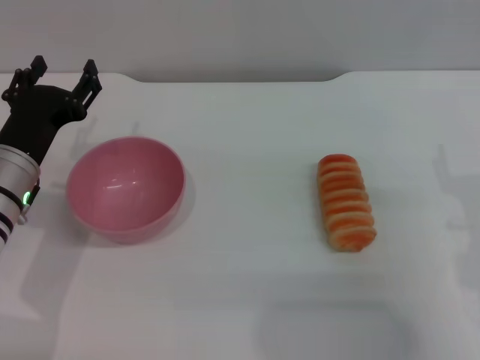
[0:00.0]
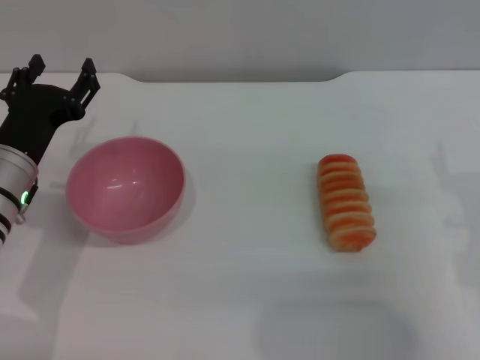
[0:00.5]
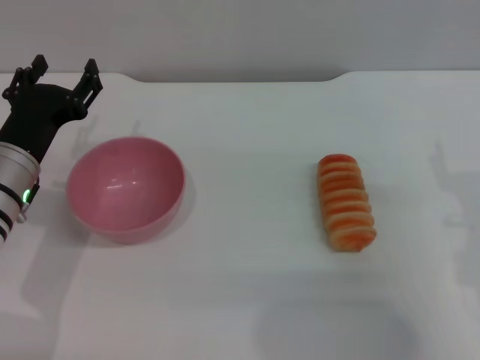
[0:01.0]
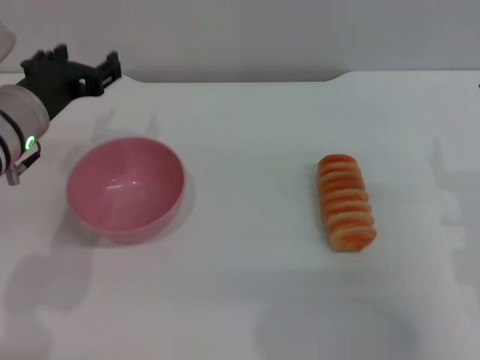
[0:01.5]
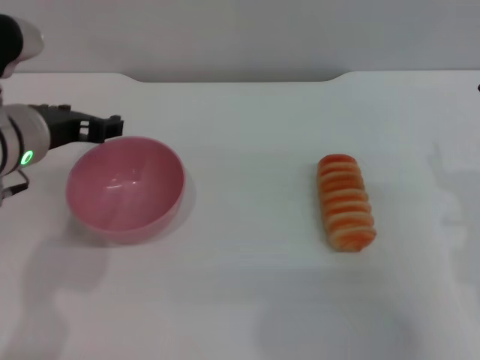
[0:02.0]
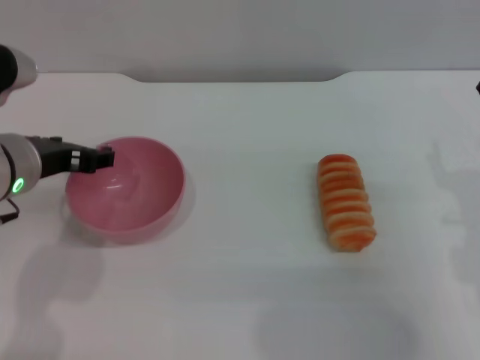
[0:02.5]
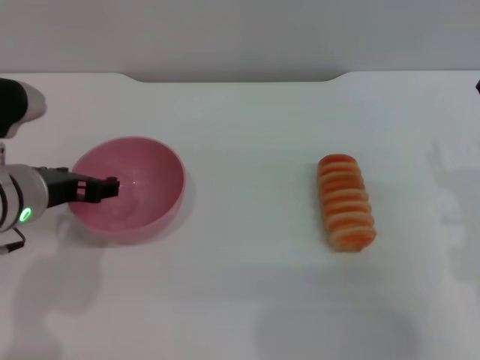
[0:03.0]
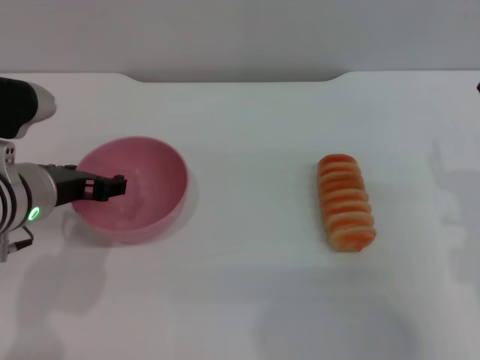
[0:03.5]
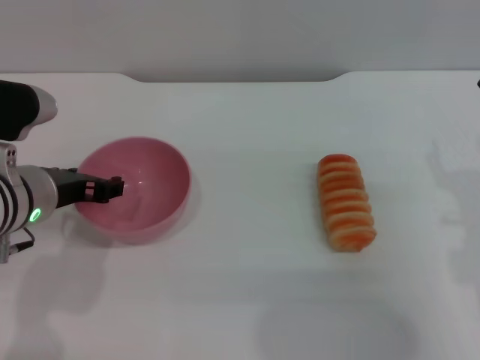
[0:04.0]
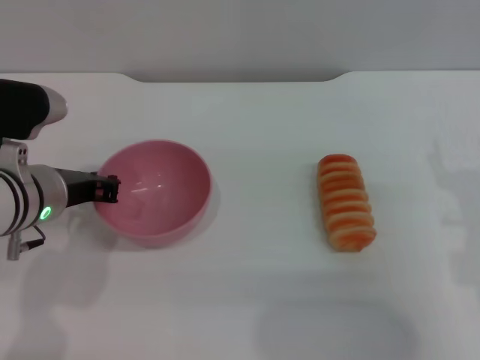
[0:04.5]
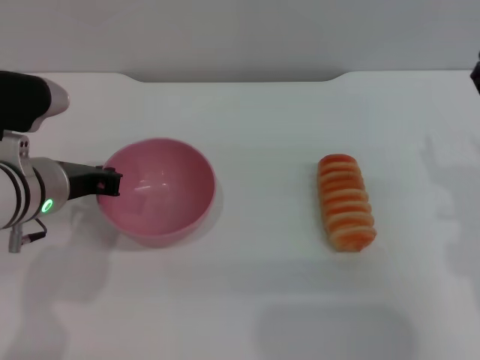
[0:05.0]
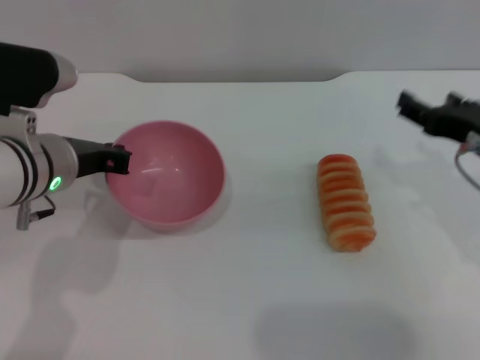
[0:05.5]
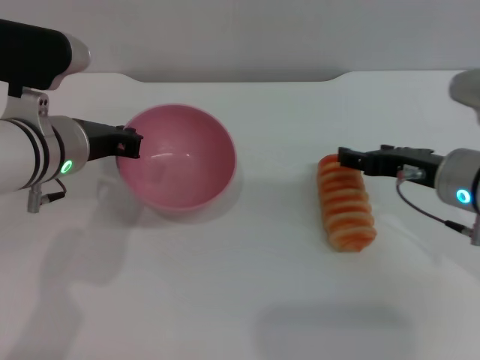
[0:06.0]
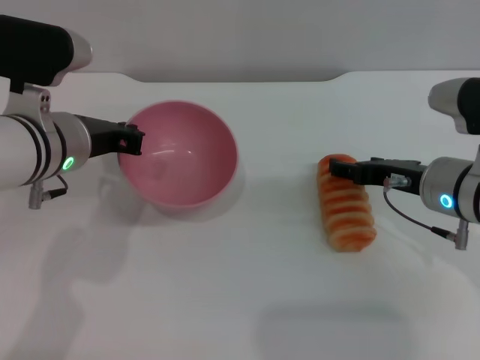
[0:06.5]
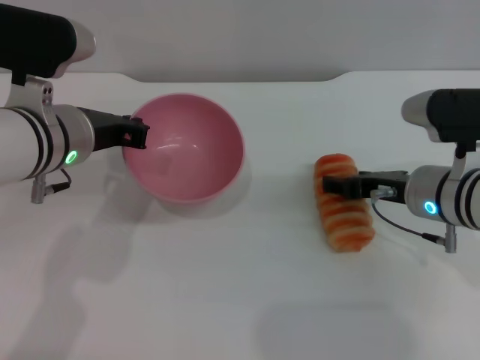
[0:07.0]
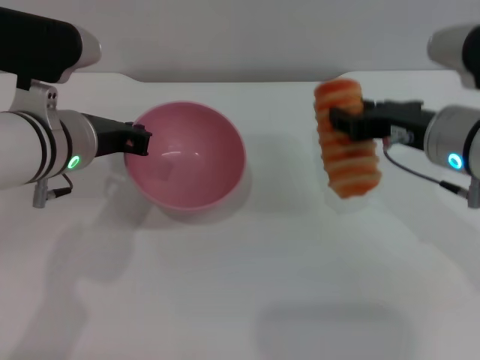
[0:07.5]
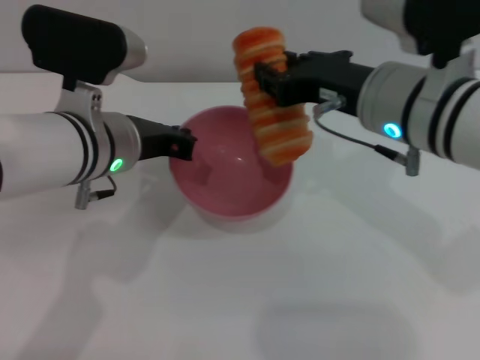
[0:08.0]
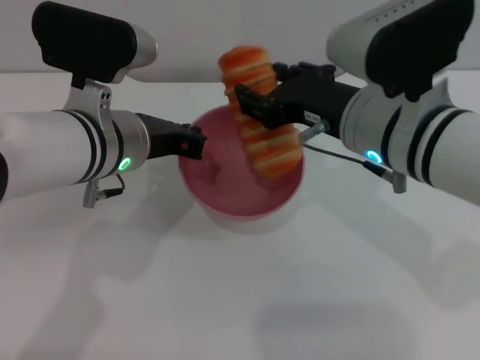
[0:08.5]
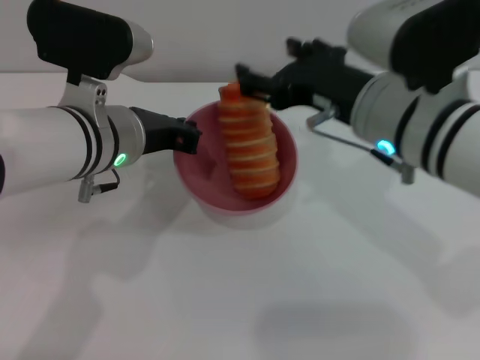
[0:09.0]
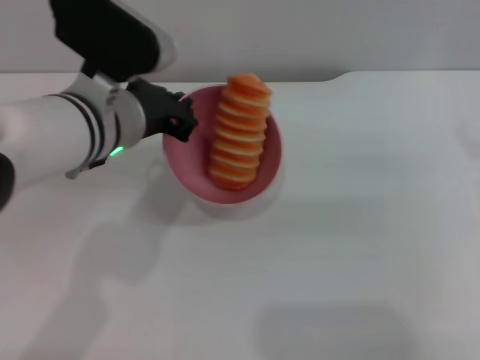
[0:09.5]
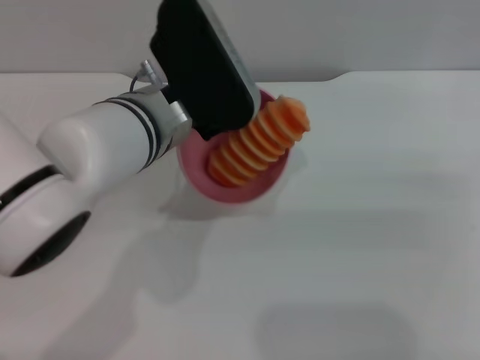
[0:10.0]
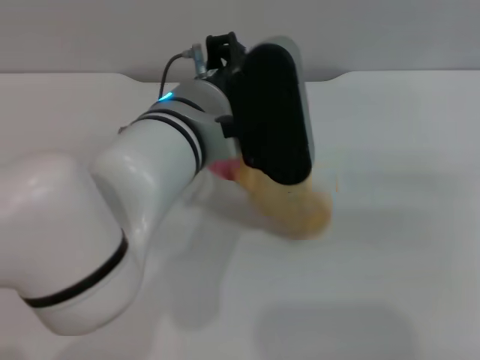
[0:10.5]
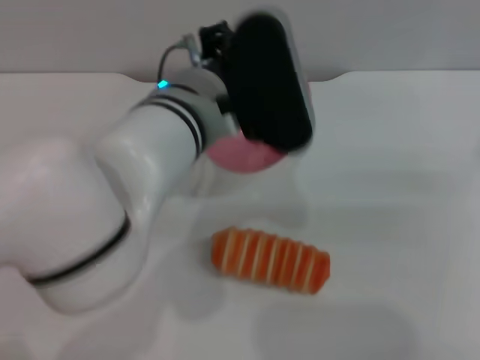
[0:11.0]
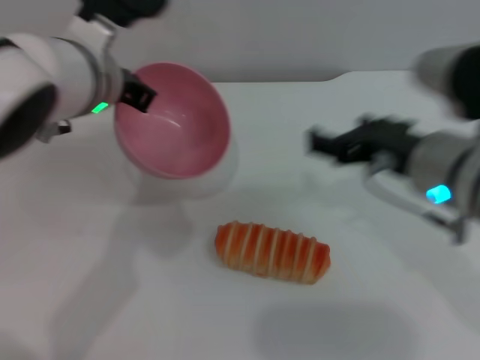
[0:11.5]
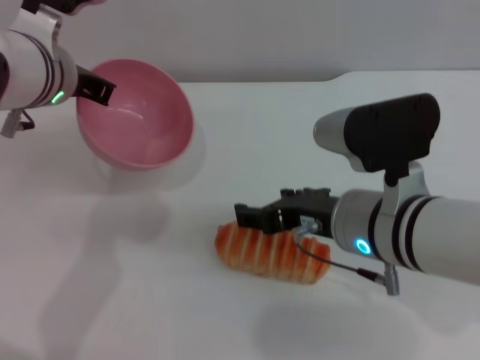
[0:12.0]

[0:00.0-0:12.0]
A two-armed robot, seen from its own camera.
Task of the whole recording: put the bread into the pink bowl and pour it out repeatedly.
Step, 0:00.0 to 0:06.0: Pick up the bowl with the left gripper.
Step, 0:06.5 to 0:07.0: Pick up the bread with the right gripper.
Step, 0:08.0 to 0:08.5: Place the bread into the bowl.
Step, 0:09.0 to 0:10.5: Pour the bread out of the bowl.
0:00.0 to 0:02.0: The left gripper moves upward, about 10 cm.
0:02.0 to 0:04.0: There are only small adjustments of the grippers.
0:04.0 to 0:06.0: The left gripper closes. The right gripper shifts roughly 5 cm forward.
0:06.0 to 0:08.0: The right gripper shifts roughly 10 cm to the left and upward, and closes up.
0:08.0 to 0:10.0: The left gripper travels to the right by some 5 cm, while the right gripper moves to the right, some 20 cm, and opens up.
0:10.0 to 0:12.0: The left gripper heads to the left, covering approximately 10 cm. The right gripper heads to the left, covering some 20 cm.

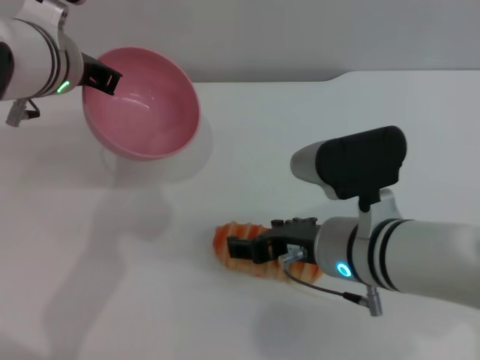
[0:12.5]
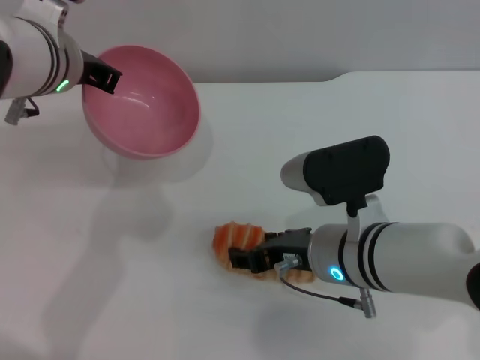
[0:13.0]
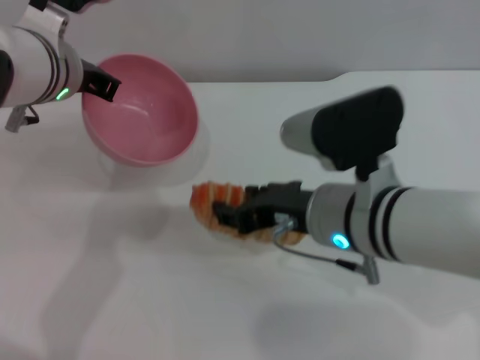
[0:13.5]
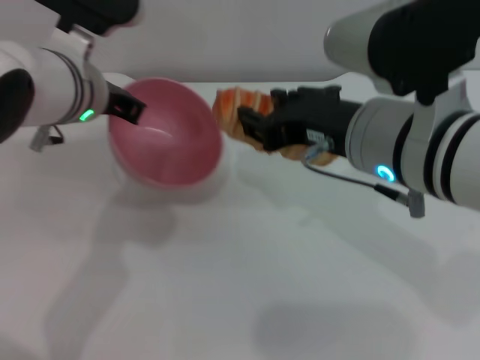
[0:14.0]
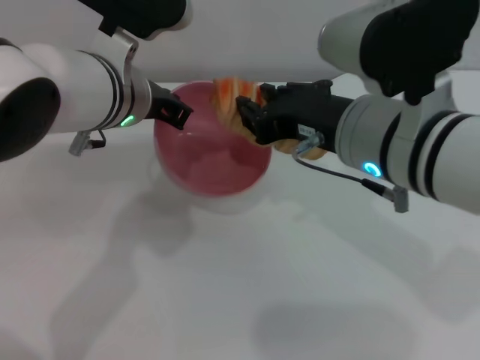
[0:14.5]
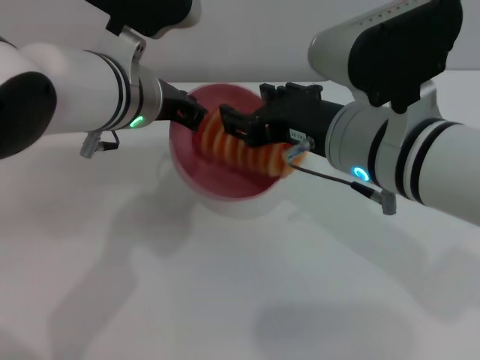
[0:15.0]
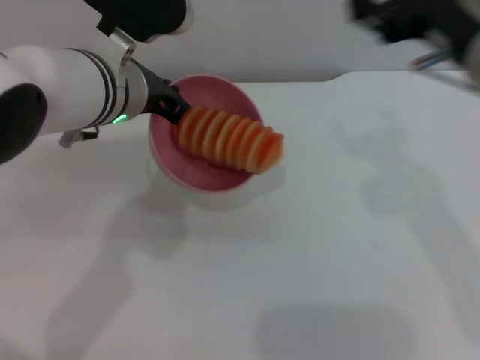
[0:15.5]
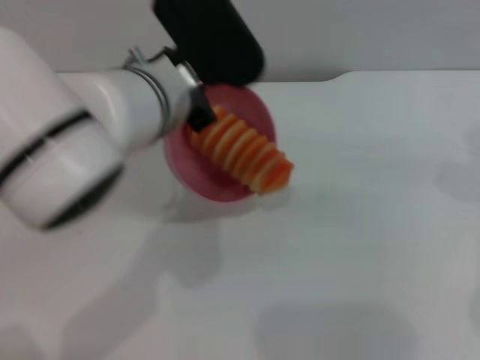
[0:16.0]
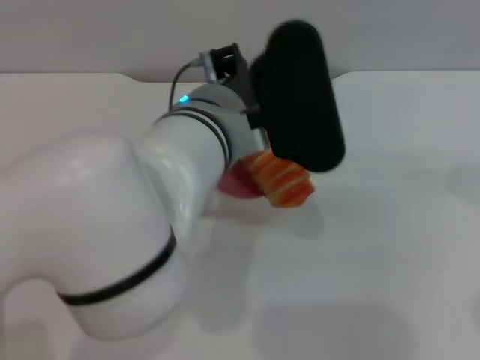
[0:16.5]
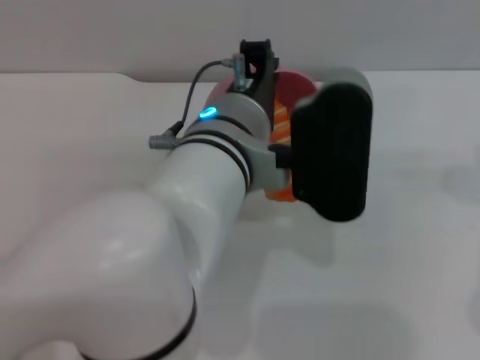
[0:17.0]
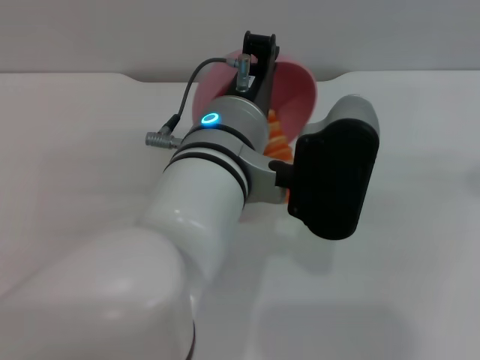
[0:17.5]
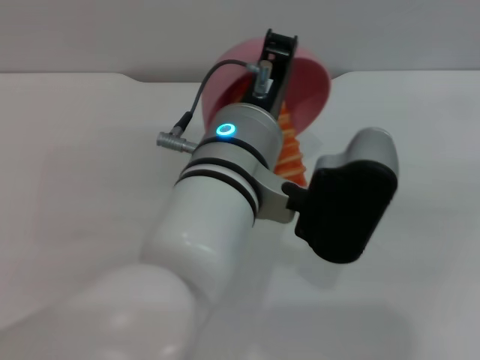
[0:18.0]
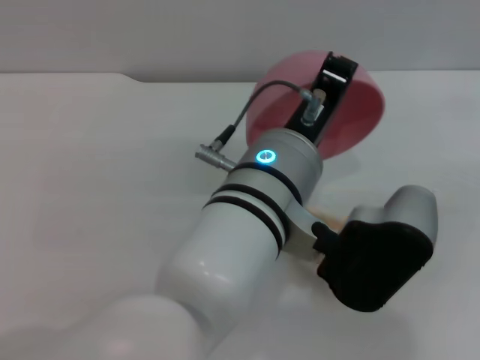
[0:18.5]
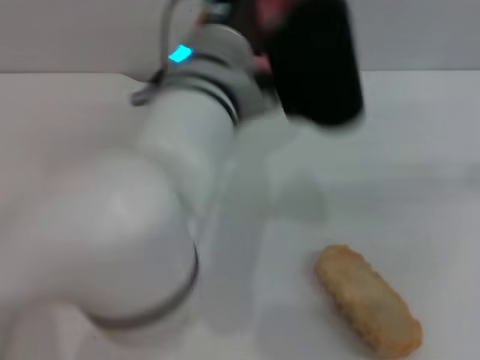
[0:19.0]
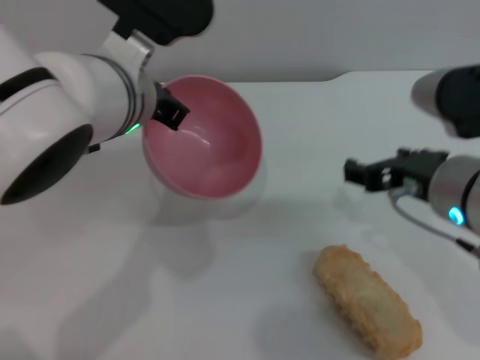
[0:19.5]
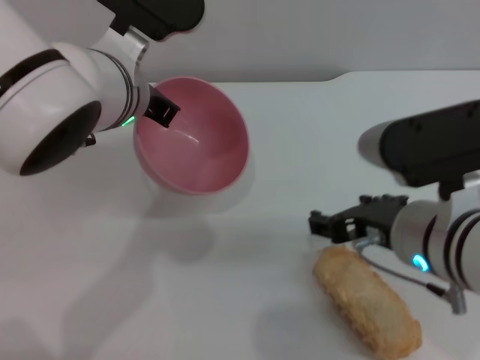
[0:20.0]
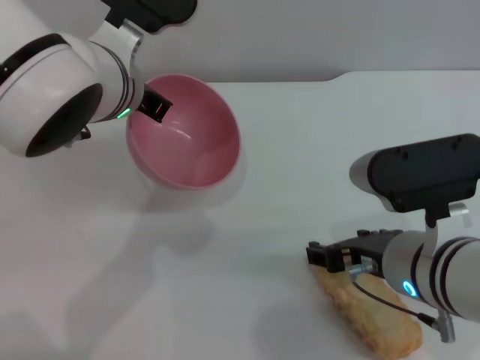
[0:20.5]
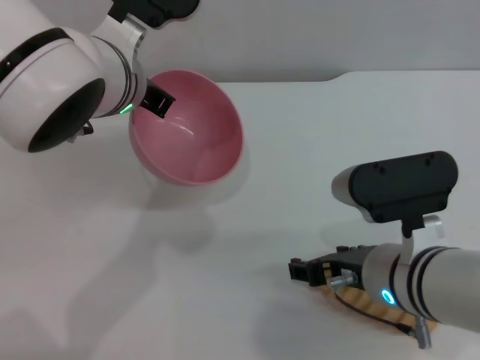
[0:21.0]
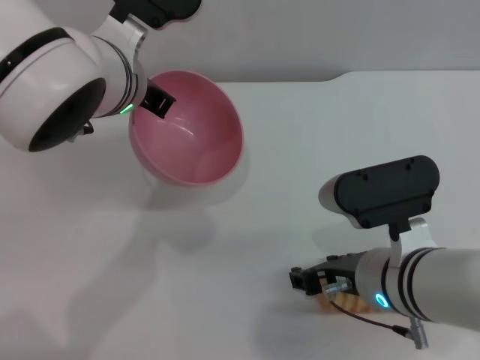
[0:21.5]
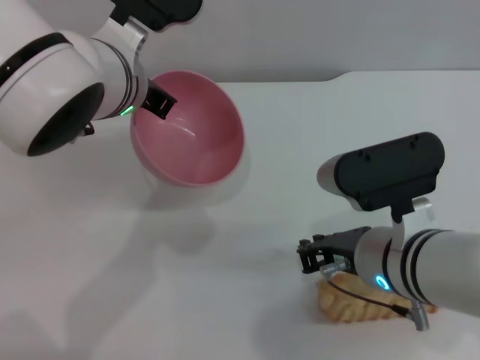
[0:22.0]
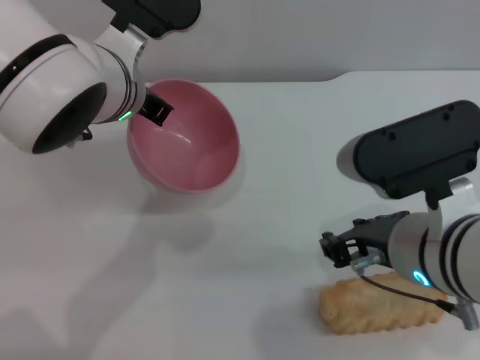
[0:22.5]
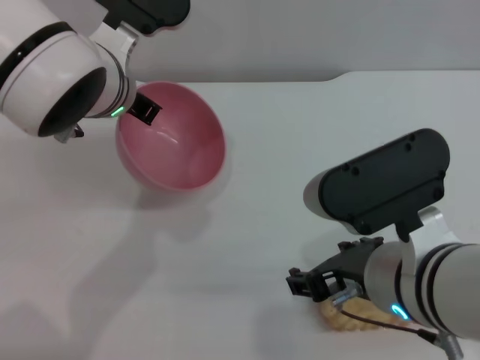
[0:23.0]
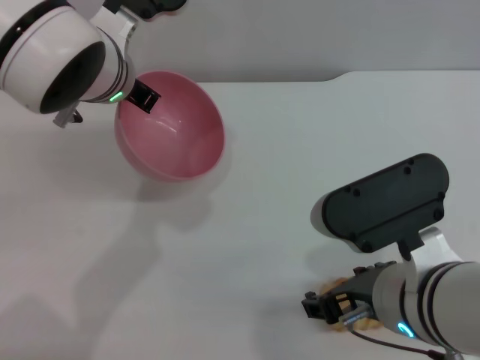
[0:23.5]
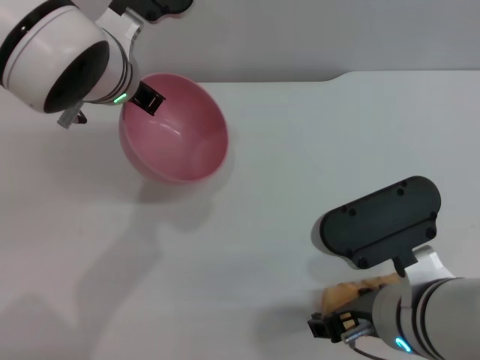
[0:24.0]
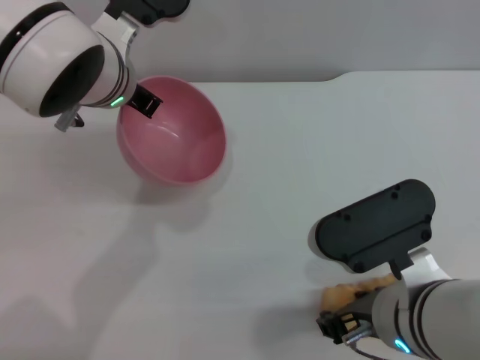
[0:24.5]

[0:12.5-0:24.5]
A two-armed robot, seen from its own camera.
Task of the whole recording: put the bread into the pink bowl and pour it out repeatedly.
Step, 0:14.0 to 0:15.0: Place the bread into the bowl.
Step, 0:15.5 to 0:18.5: Pour the bread out of the bowl.
0:12.5 to 0:14.5: The right gripper is displaced upward by approximately 10 cm, and closes; the left gripper moves to the right, approximately 5 cm.
0:14.5 to 0:16.5: The right gripper moves to the right, approximately 15 cm, and opens its fingers. The left gripper is displaced to the right and backward by some 10 cm.
0:16.5 to 0:18.5: The left gripper moves about 5 cm, while the right gripper is displaced to the right by about 5 cm.
0:18.5 to 0:20.5: The left gripper is displaced to the left and forward by some 15 cm; the right gripper shifts approximately 20 cm to the left.
0:20.5 to 0:22.5: The right gripper closes up.
0:22.5 to 0:24.5: The right gripper moves roughly 5 cm, and opens up.

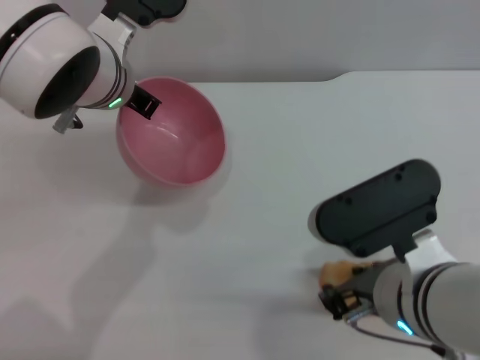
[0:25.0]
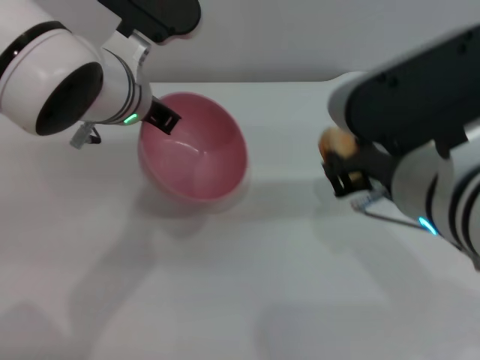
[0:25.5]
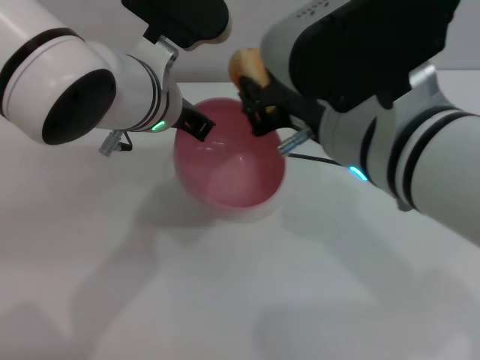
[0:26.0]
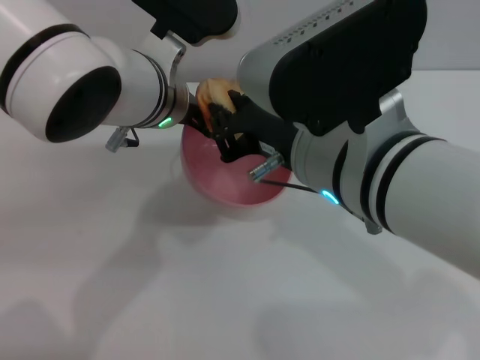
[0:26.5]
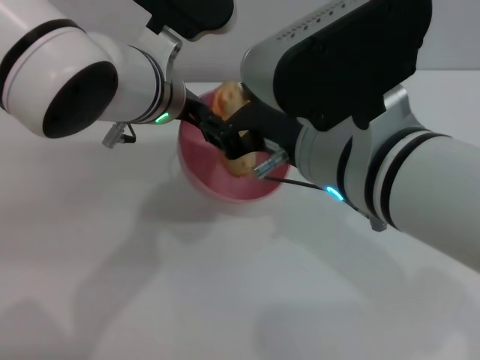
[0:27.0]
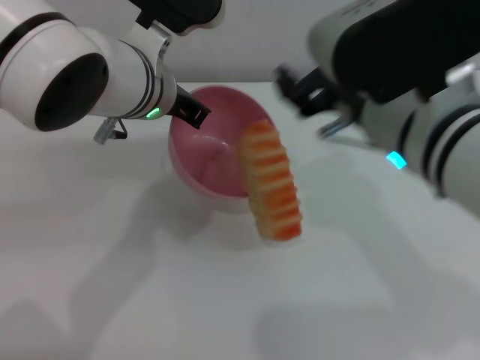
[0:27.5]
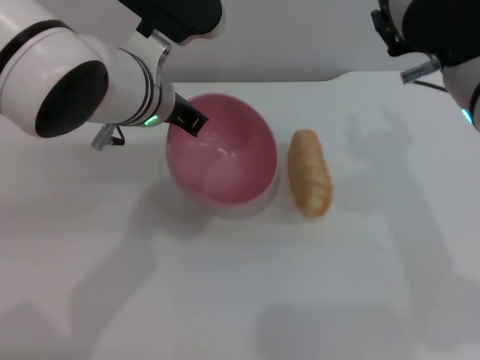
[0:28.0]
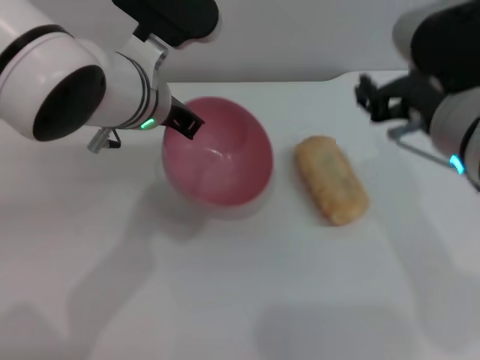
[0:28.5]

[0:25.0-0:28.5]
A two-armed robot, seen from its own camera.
Task of the whole recording: put the bread into the pink bowl and pour it out repeatedly.
Step, 0:25.5 to 0:27.0: Place the bread into the bowl.
Step, 0:27.5 to 0:28.0: Pour the bread out of the bowl.
0:25.0 to 0:27.0: The right gripper heads upward and to the left, covering some 10 cm.
0:27.0 to 0:28.5: The right gripper shifts approximately 10 cm to the right, and opens up.
